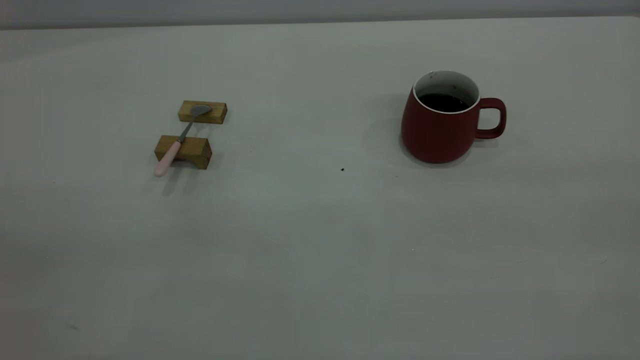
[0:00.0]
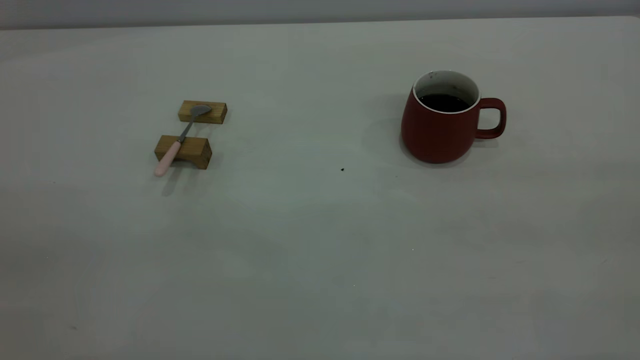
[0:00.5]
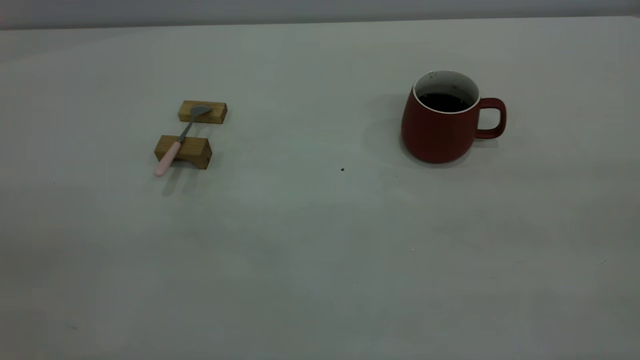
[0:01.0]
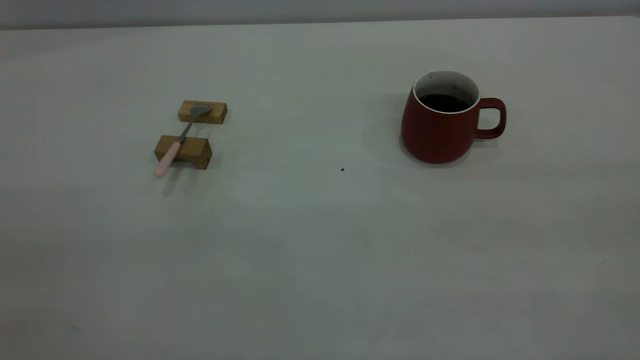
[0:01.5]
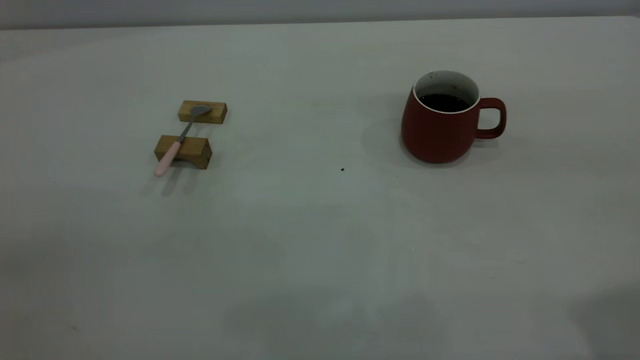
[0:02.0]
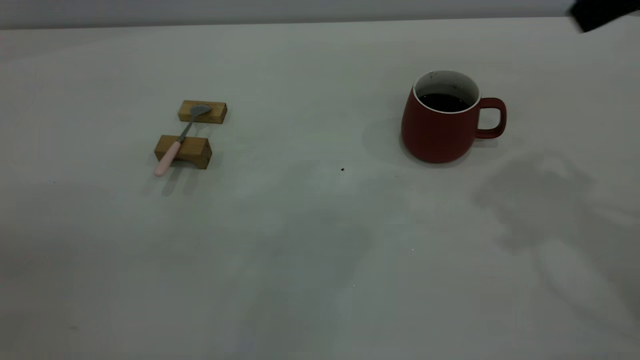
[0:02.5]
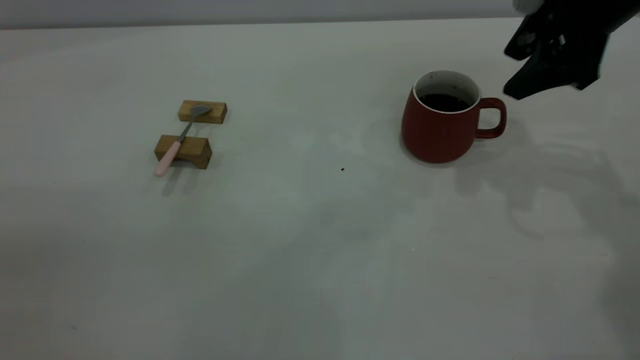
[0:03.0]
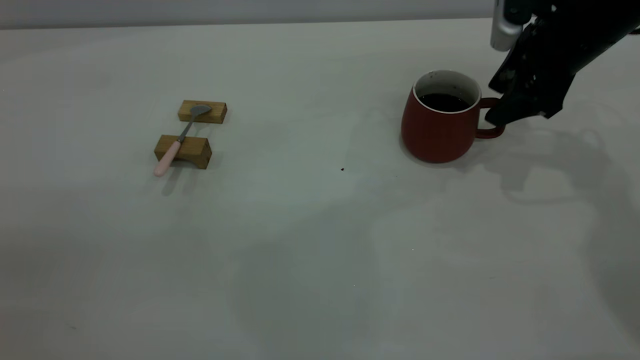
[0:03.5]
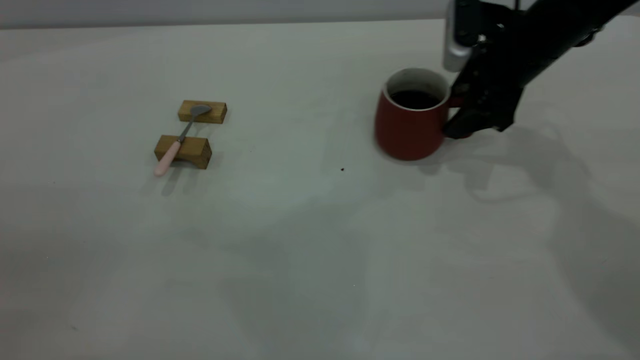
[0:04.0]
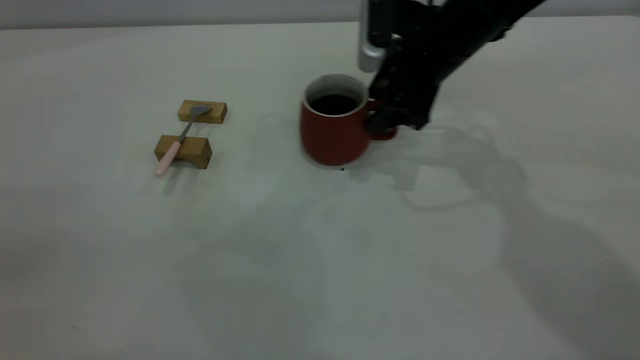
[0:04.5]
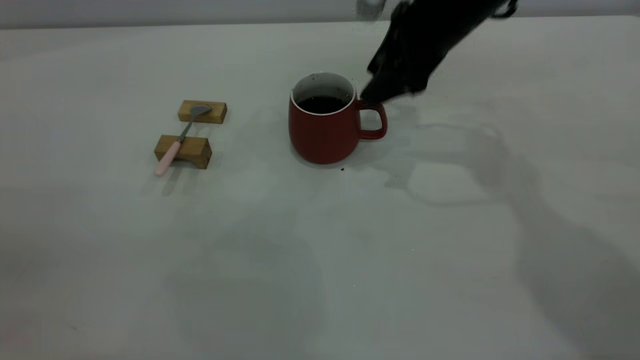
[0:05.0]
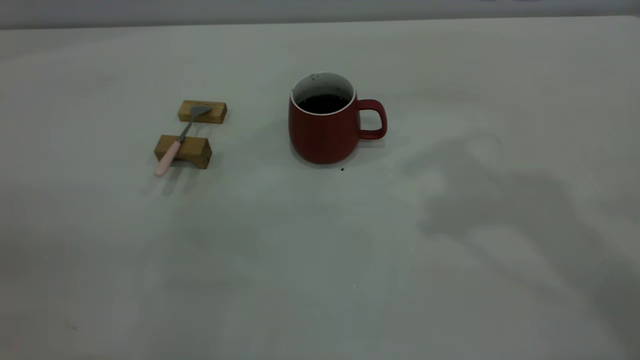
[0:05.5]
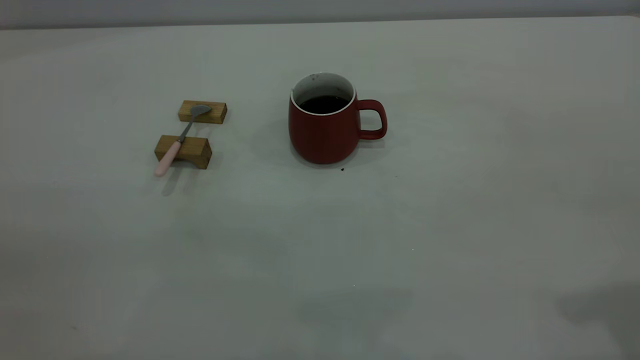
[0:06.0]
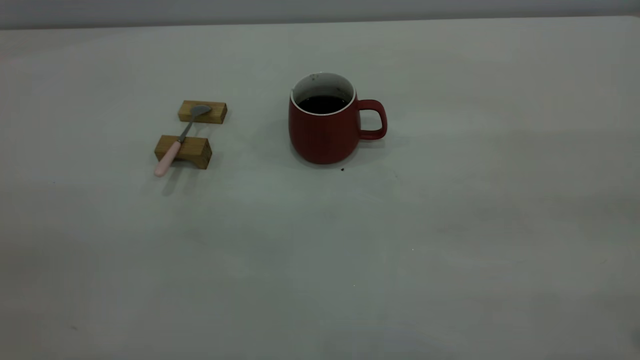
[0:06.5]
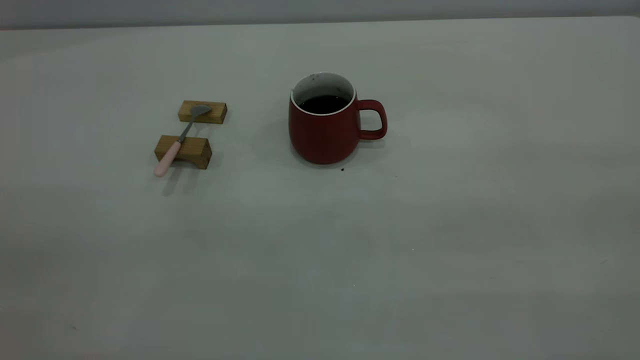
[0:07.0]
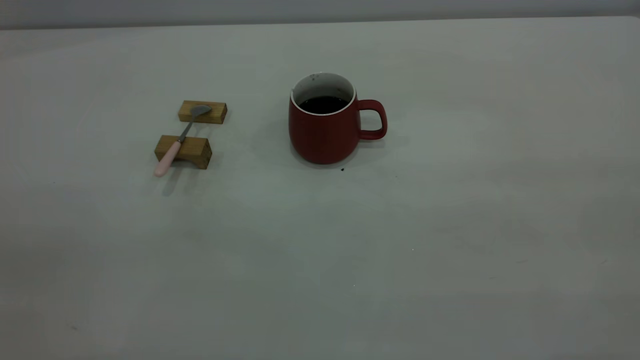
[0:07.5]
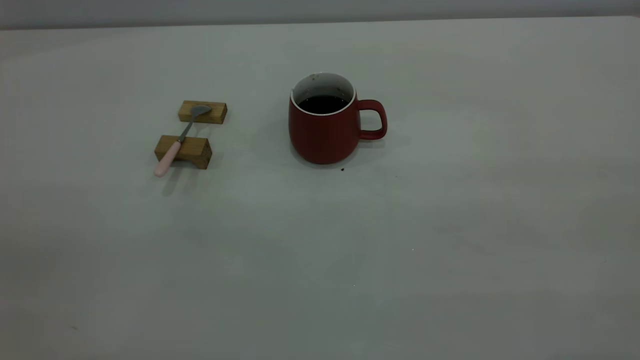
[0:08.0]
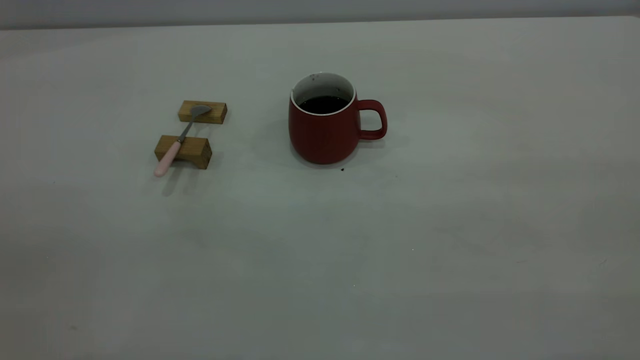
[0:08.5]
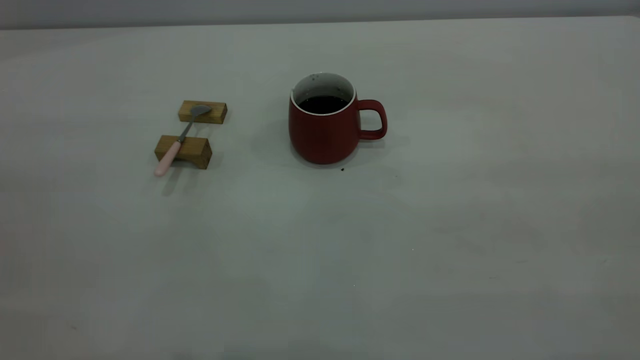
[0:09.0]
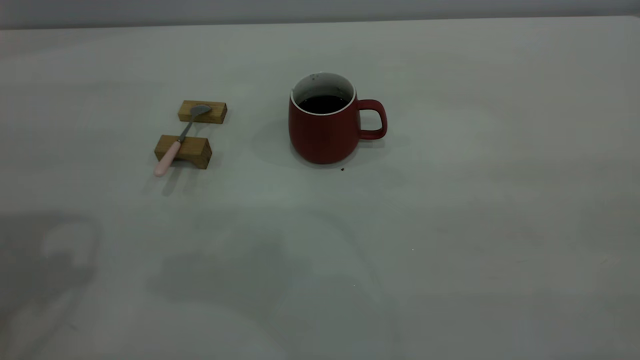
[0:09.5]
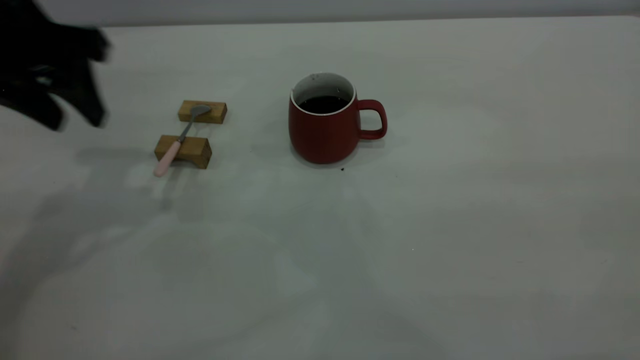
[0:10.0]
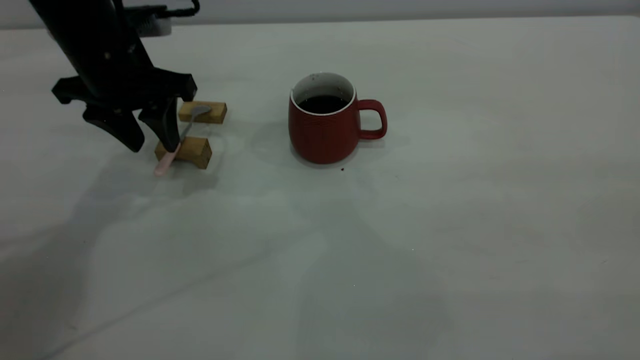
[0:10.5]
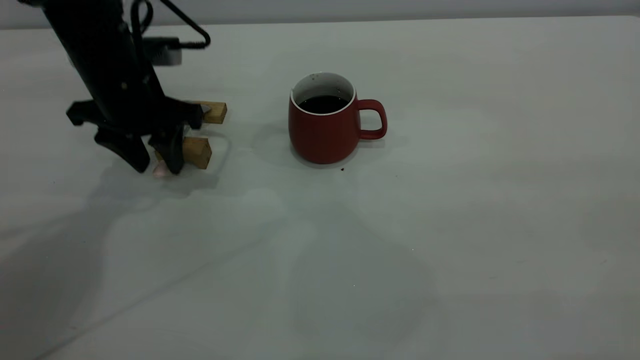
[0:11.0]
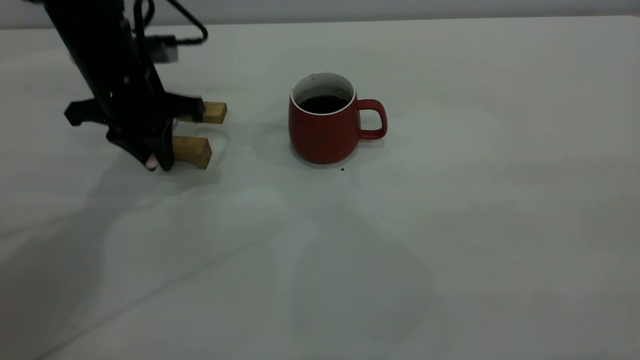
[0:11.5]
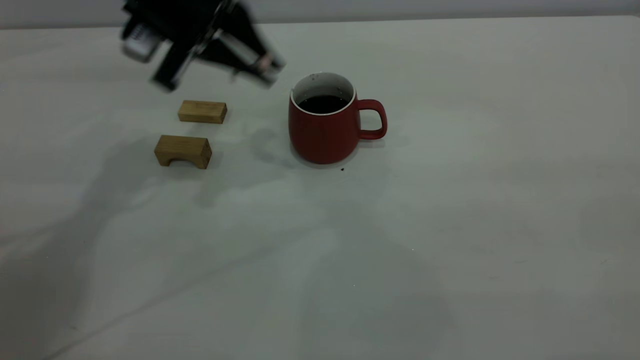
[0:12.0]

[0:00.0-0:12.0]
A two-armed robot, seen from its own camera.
Step, 0:00.0 to 0:05.0: Move the cup with coffee to the center of view.
Step, 0:05.5 to 0:11.5: Pick up the spoon.
0:02.0 to 0:04.0: The right gripper is displaced forward and downward by approximately 35 cm.
0:04.0 to 0:06.0: The right gripper moves backward and upward, about 35 cm.
0:08.0 to 0:10.0: The left gripper is displaced forward and downward by roughly 40 cm.
0:10.0 to 0:12.0: The left gripper heads to the right and forward, covering approximately 10 cm, goes downward and returns, roughly 10 cm each way, and closes up.

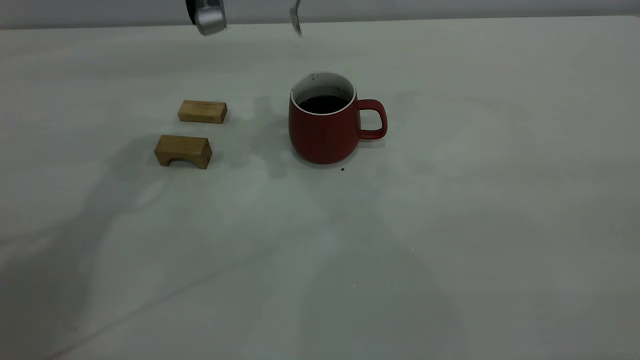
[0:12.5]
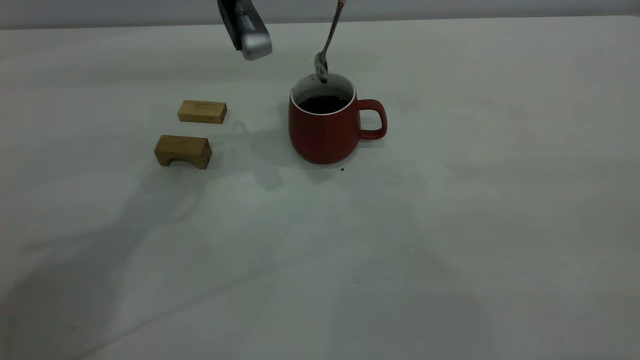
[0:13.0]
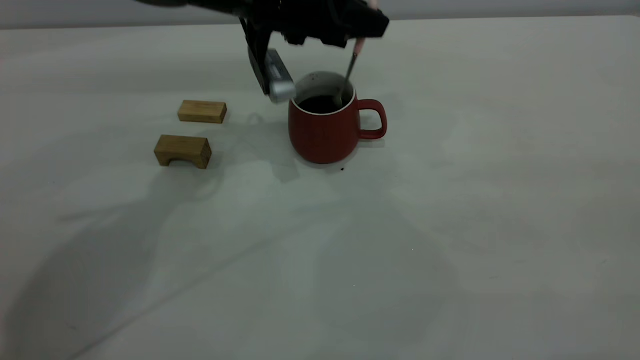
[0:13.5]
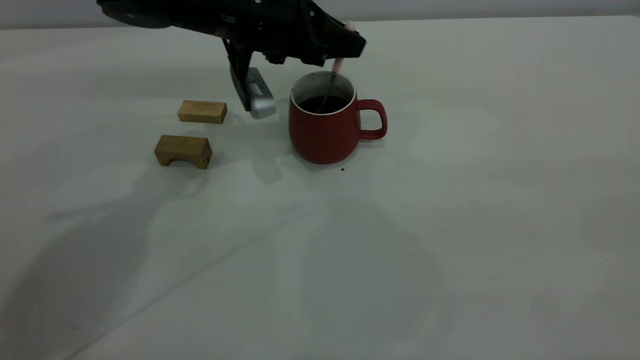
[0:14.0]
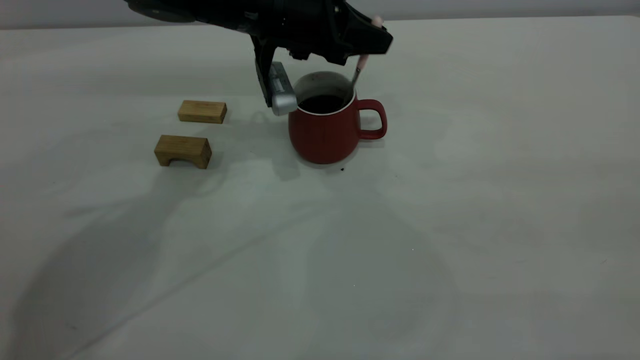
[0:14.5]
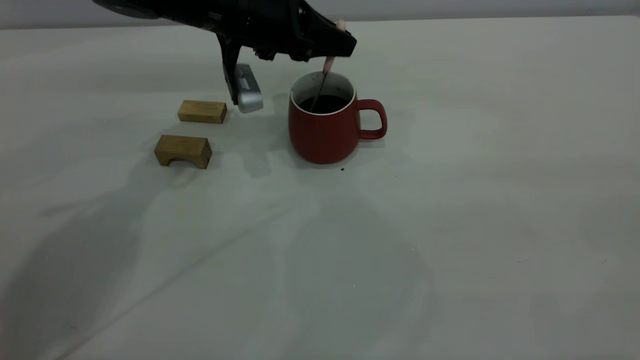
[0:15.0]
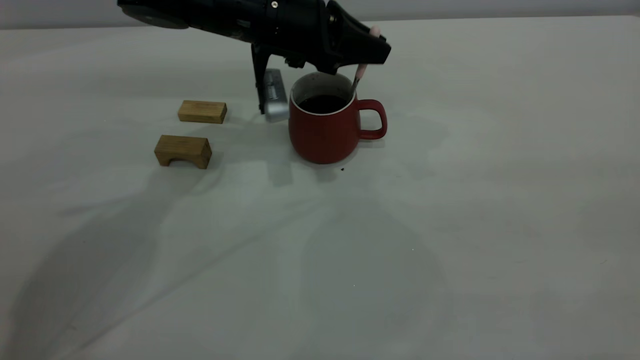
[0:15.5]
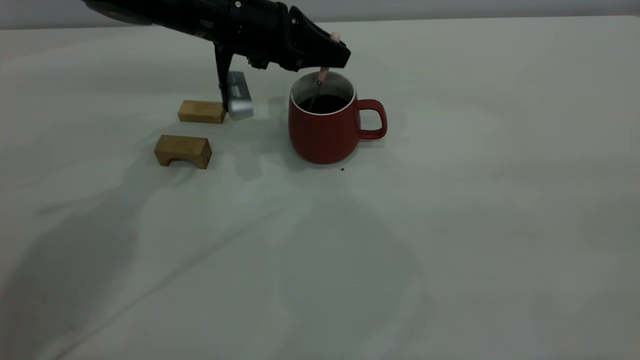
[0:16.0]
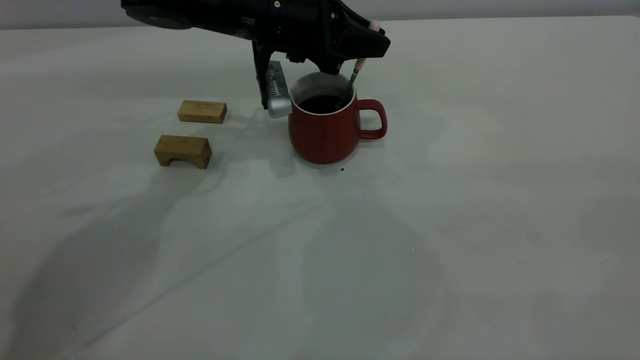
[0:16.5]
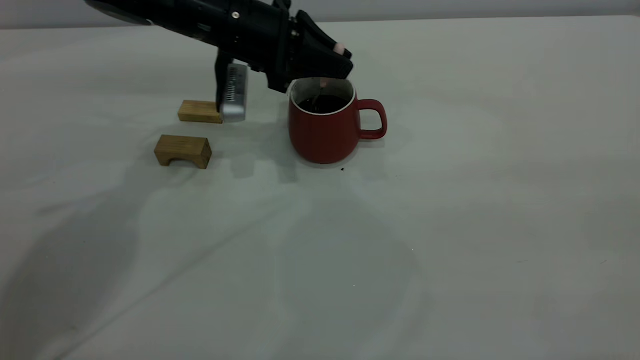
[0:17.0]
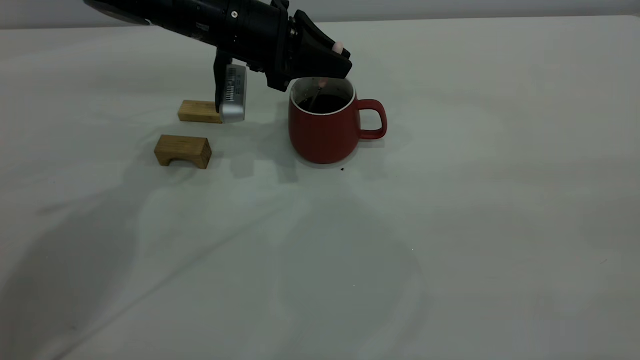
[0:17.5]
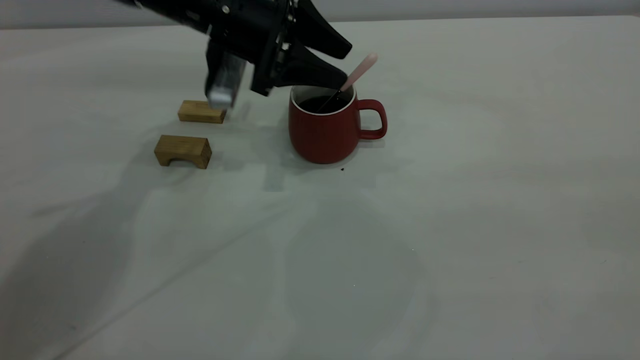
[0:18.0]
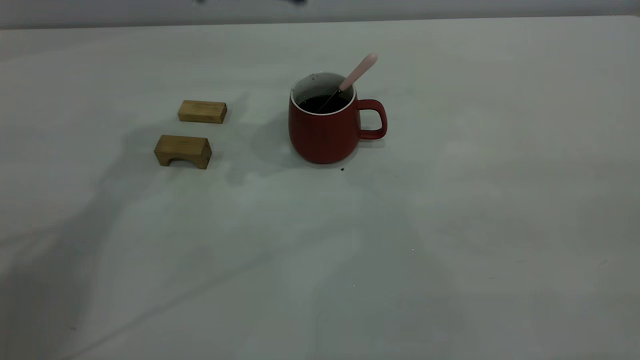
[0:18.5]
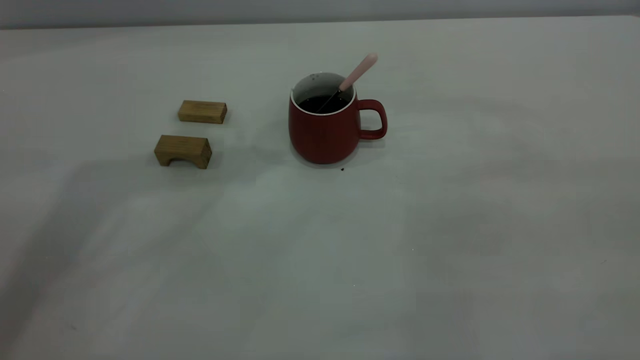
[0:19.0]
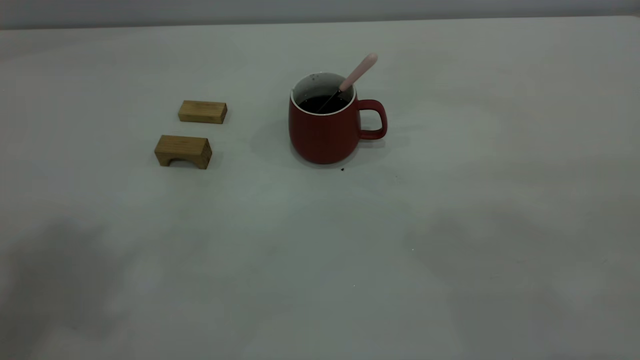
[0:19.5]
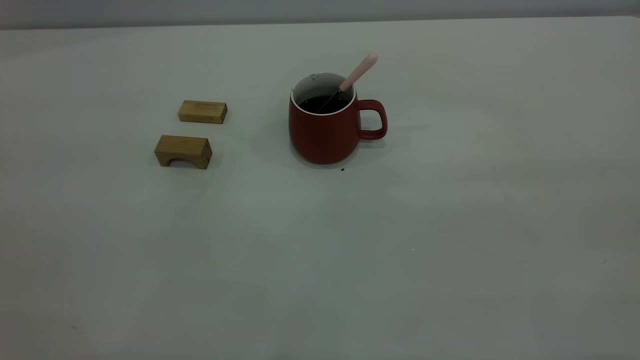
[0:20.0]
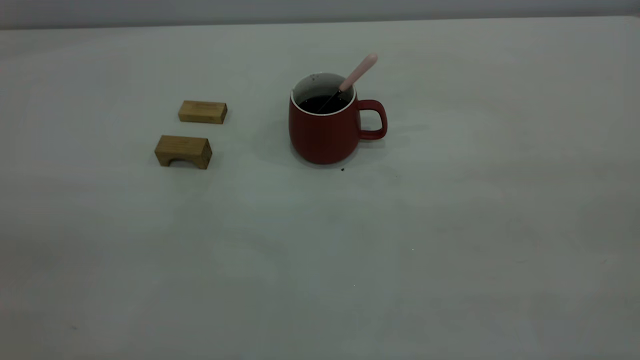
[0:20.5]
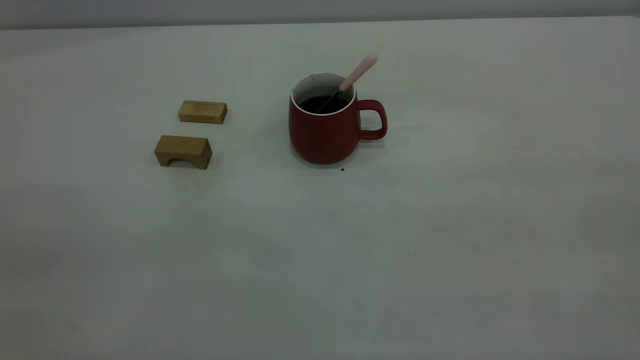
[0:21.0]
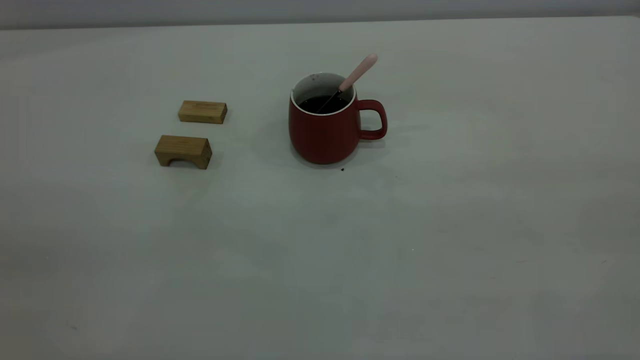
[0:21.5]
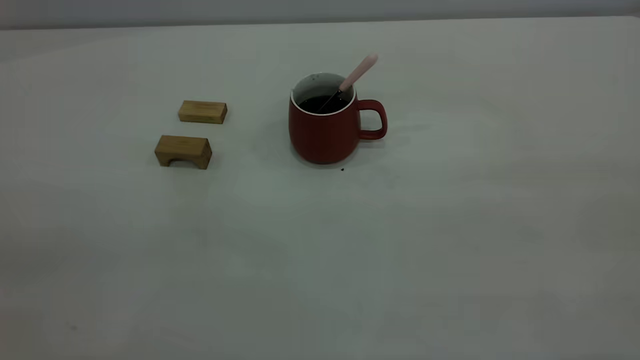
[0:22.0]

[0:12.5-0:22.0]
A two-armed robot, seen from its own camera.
Step, 0:12.5 to 0:18.0: Stir the coffee in the cup.
0:12.5 to 0:14.5: The left gripper goes about 10 cm downward and to the right.
0:14.5 to 0:16.5: The grippers make only small movements.
0:16.5 to 0:18.0: The left gripper opens.
0:18.0 to 0:20.0: The left gripper moves backward, upward and to the left, roughly 50 cm.
